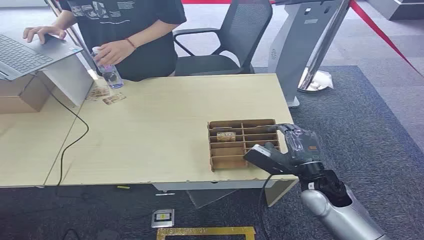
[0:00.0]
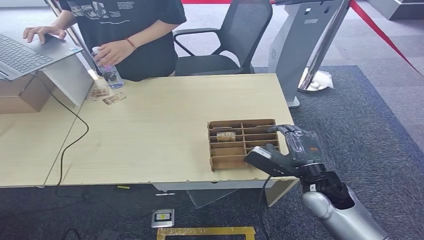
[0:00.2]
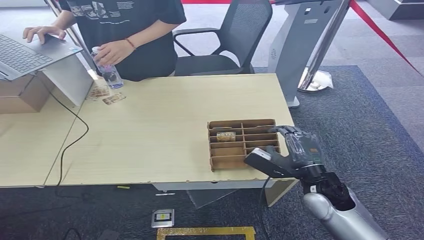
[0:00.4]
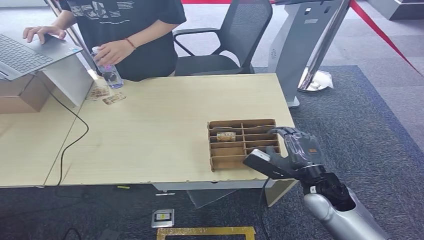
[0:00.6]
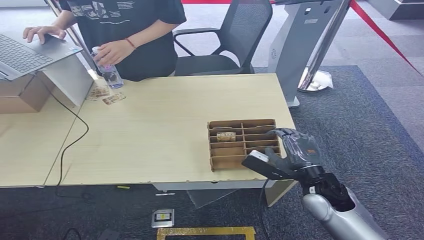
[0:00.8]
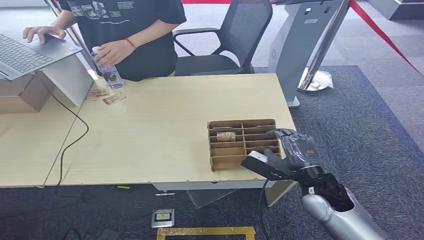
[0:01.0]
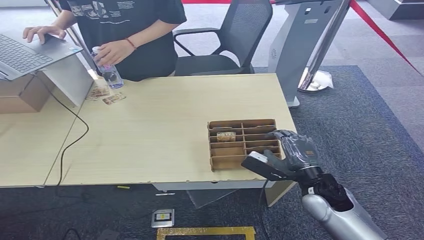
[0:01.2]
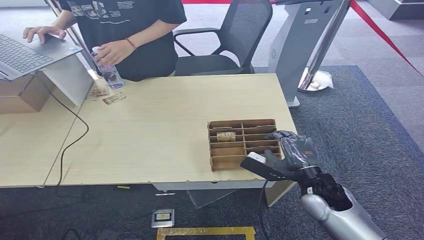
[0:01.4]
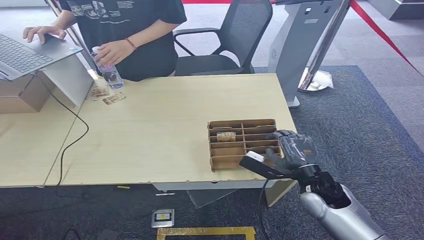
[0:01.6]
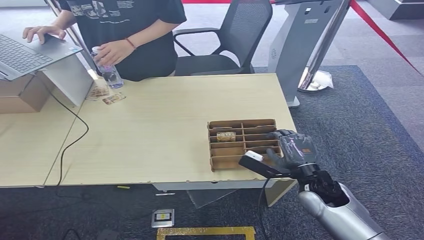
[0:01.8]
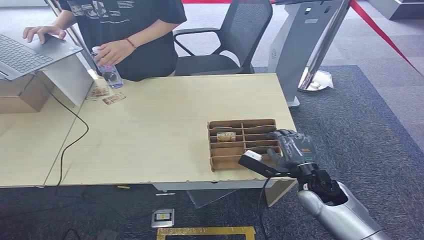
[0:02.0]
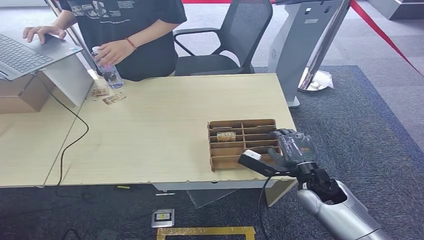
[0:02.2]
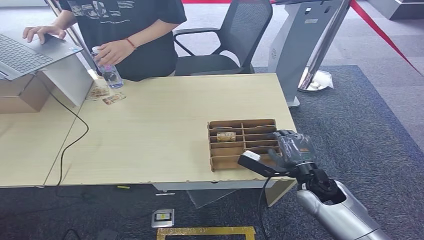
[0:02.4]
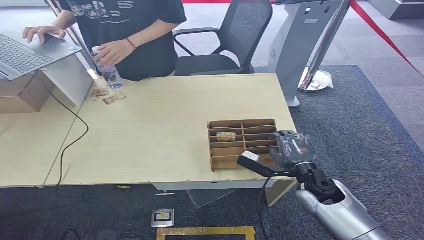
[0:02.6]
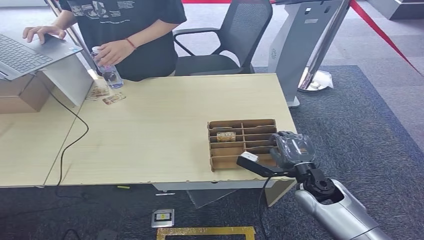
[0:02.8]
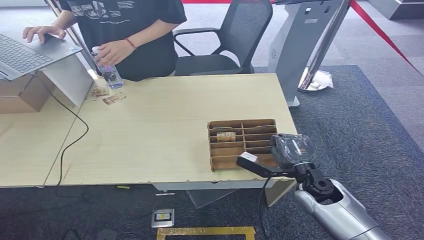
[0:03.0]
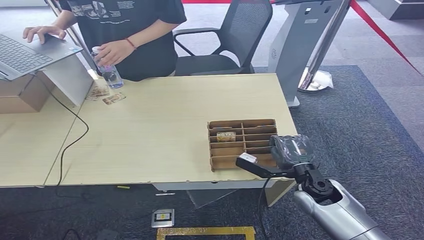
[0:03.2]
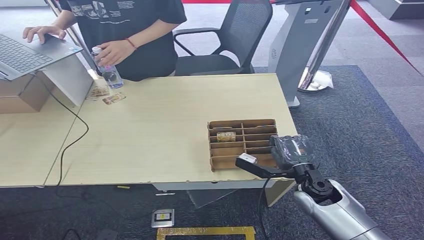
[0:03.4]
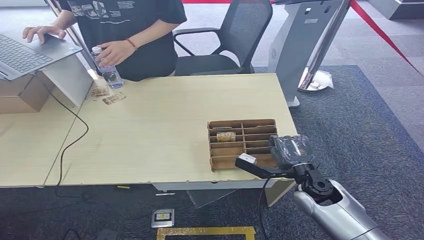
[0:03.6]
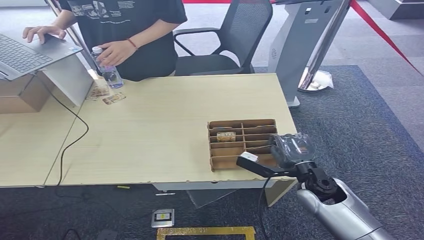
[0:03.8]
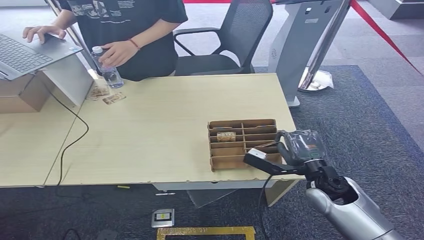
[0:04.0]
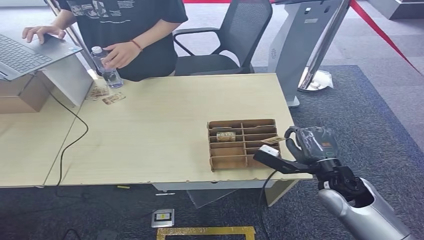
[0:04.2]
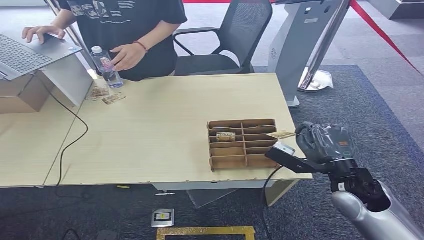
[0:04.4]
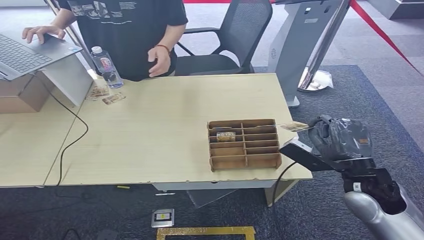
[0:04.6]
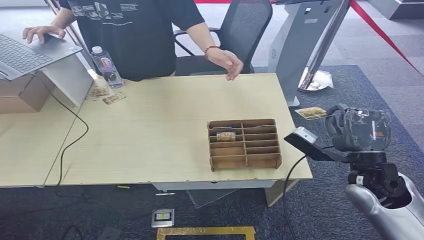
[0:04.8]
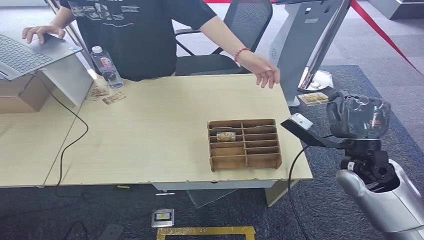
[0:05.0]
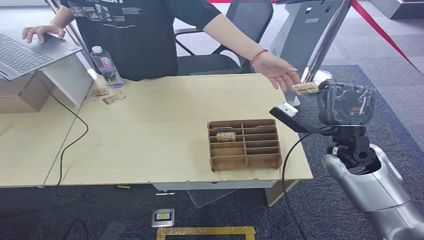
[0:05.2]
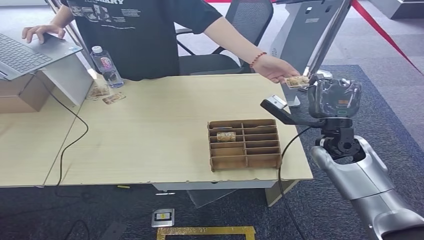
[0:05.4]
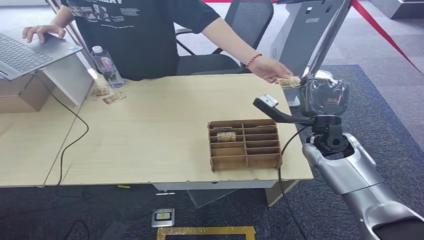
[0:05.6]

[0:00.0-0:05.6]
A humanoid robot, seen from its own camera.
Step, 0:00.0 to 0:04.2: Pick up the room card from the card holder.
Step, 0:04.6 to 0:05.6: Hand the room card to the target.
0:01.4 to 0:02.8: The hands make only small movements.
0:02.8 to 0:04.2: The right hand moves roughly 5 cm.
0:04.2 to 0:05.6: The right hand moves forward and upward, roughly 10 cm.
